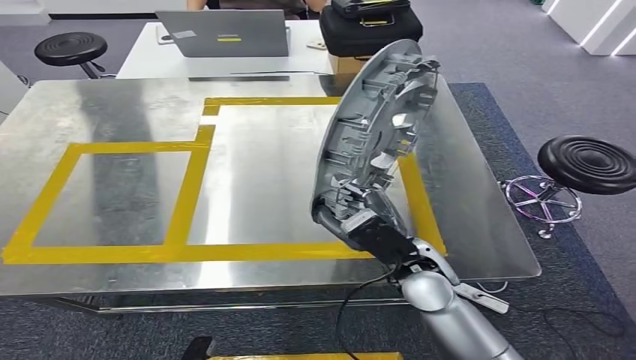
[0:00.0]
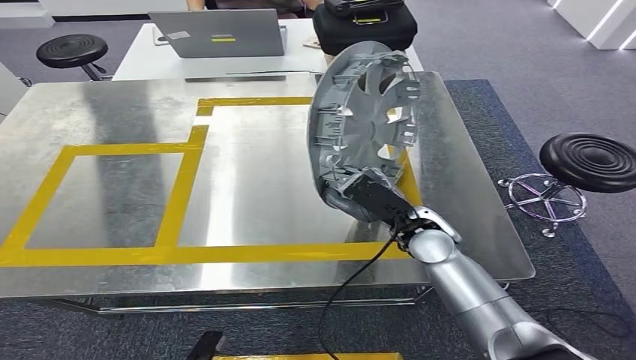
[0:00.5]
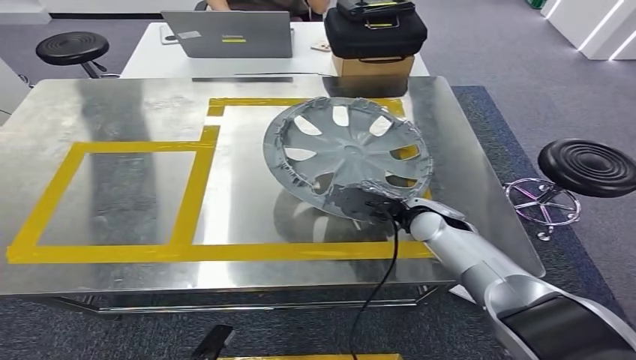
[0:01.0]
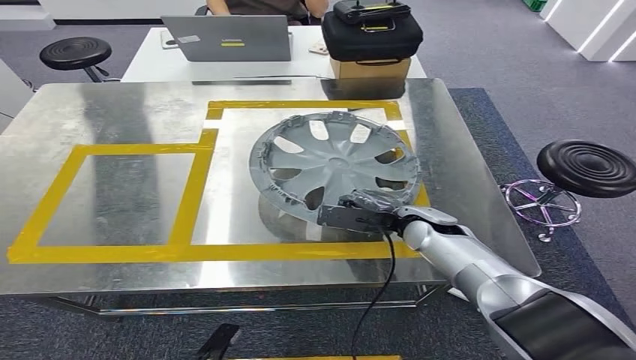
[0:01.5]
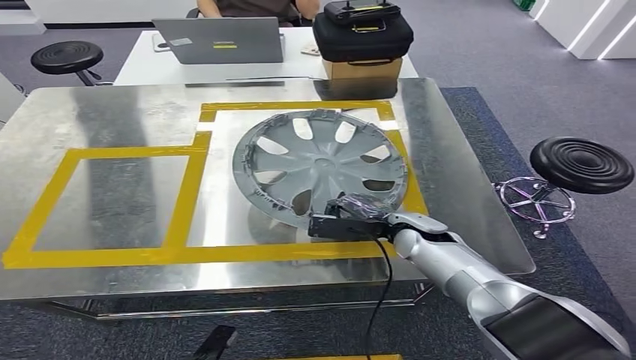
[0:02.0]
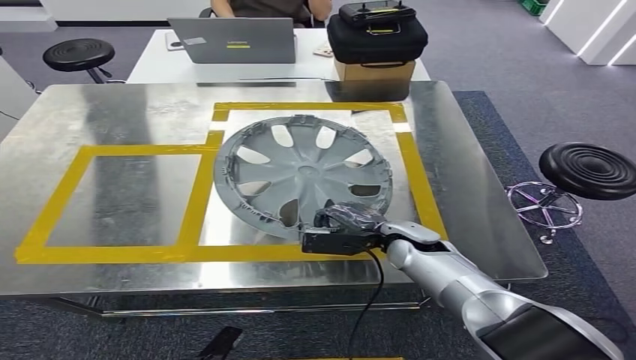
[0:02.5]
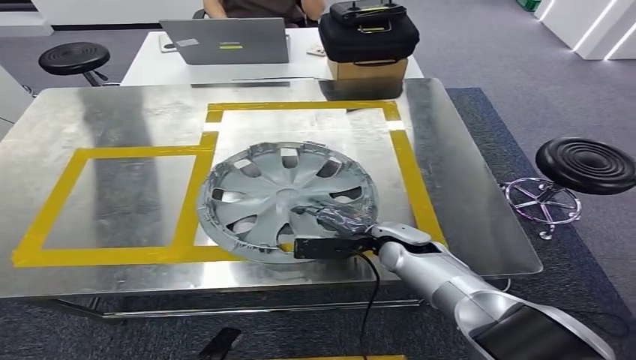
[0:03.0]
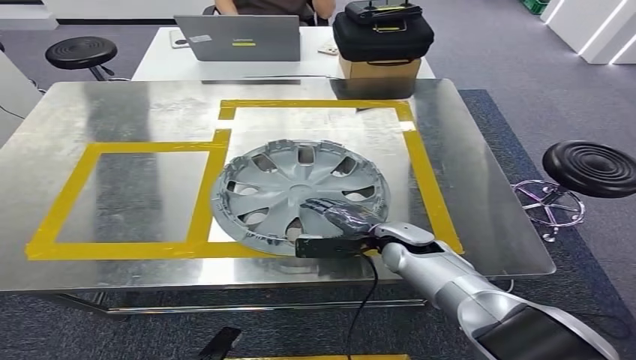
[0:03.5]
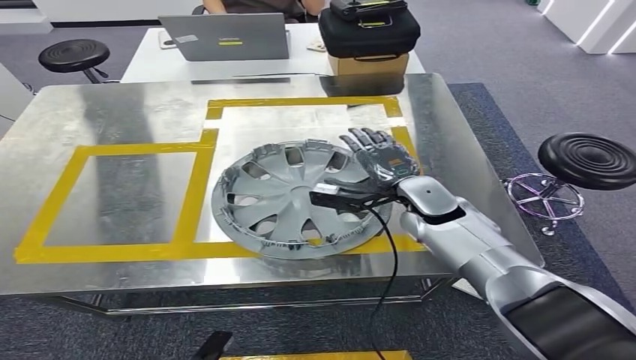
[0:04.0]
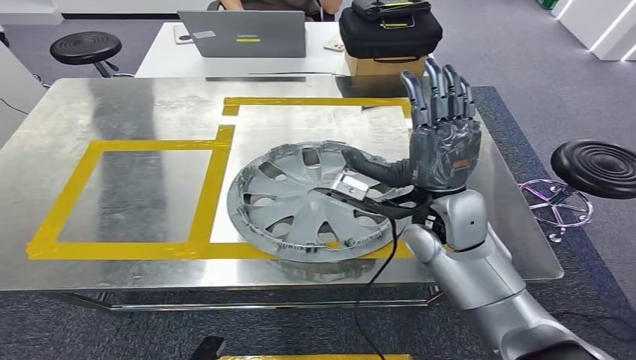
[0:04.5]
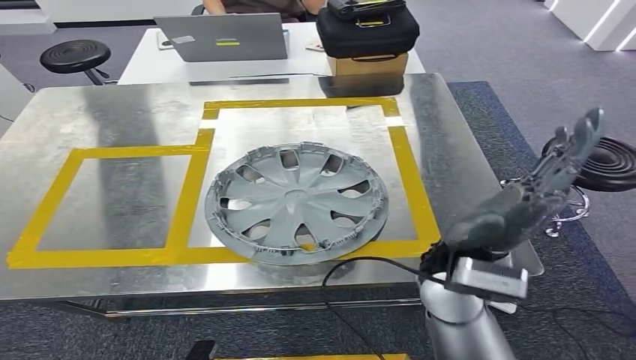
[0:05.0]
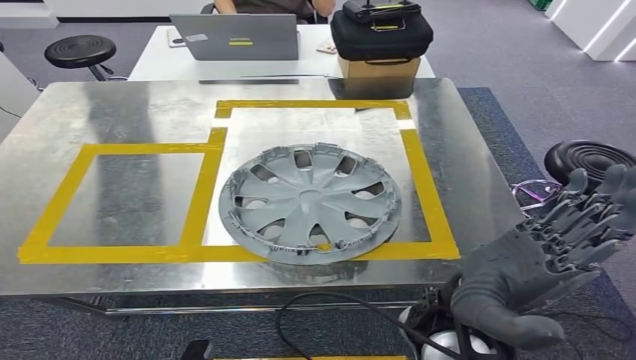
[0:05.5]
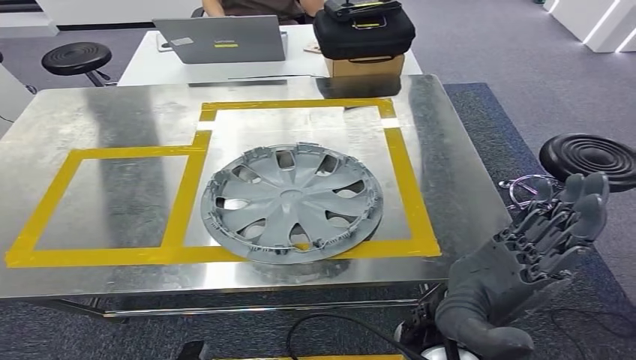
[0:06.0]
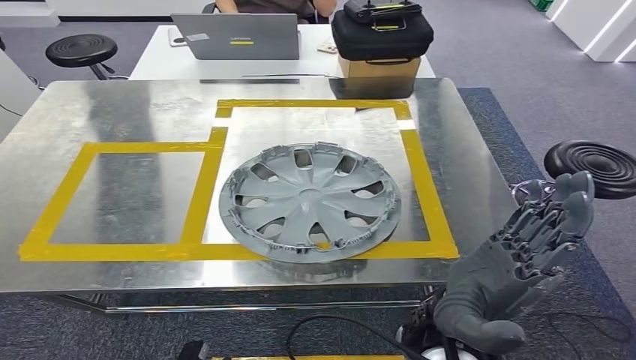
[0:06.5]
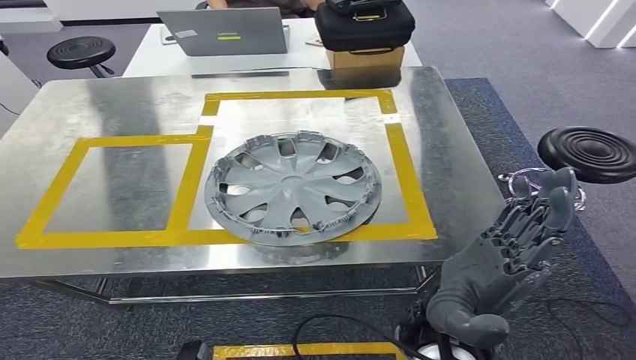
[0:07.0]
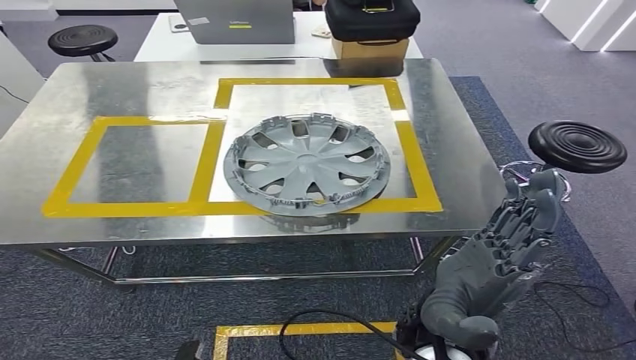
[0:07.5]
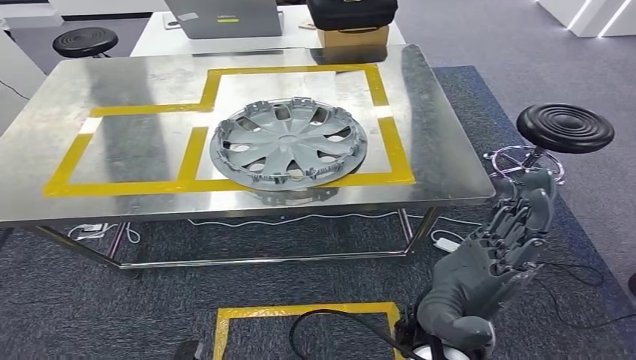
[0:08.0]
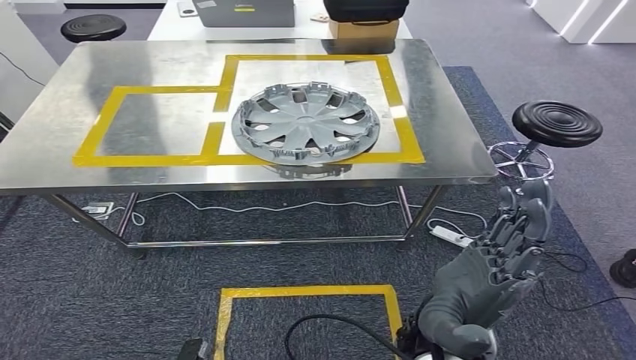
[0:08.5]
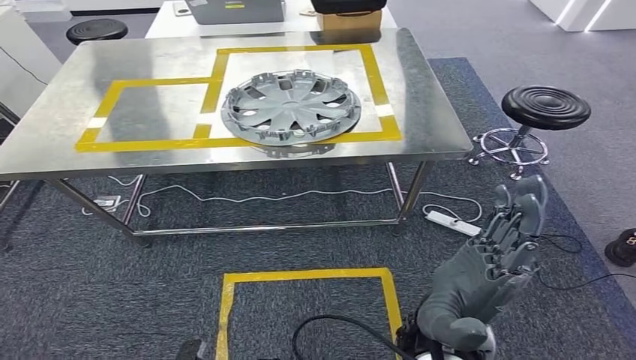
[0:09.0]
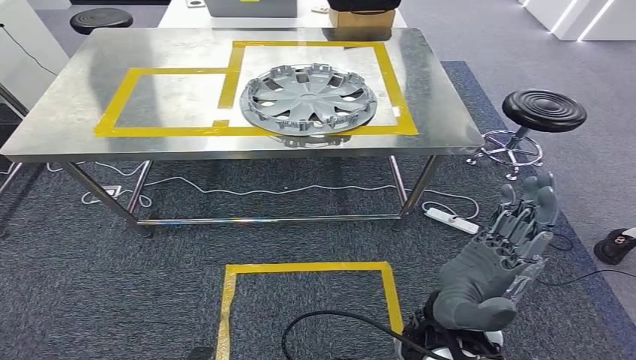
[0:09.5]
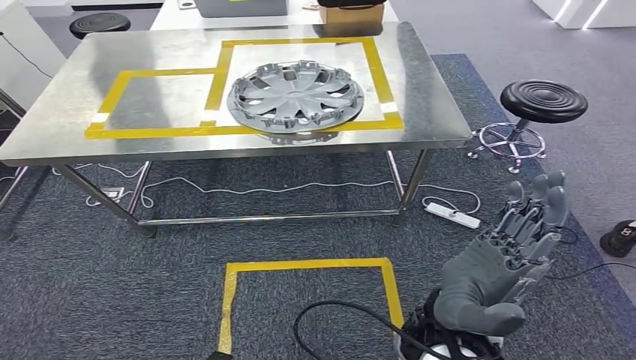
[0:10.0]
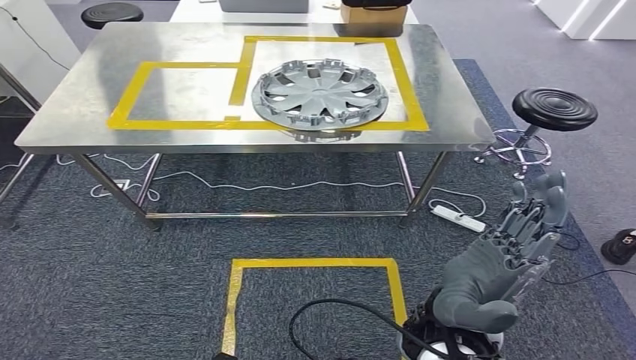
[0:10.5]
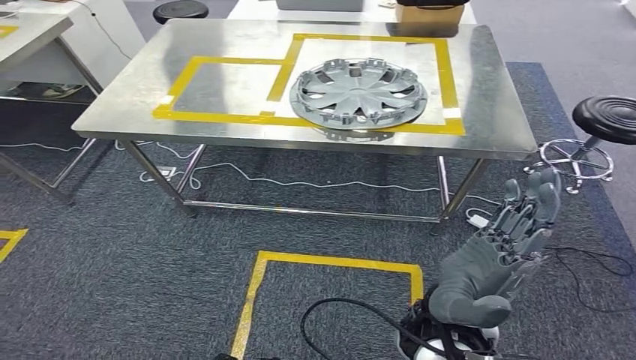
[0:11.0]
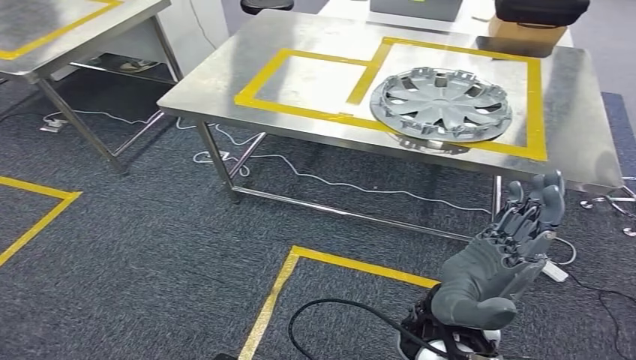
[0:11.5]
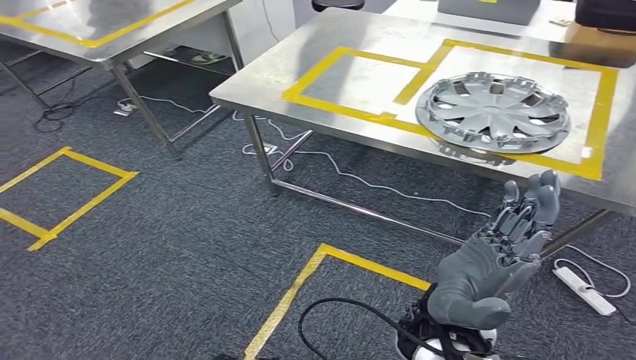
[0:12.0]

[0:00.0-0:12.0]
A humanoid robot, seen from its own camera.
Step, 0:00.0 to 0:06.0: Insert the small component into the corresponding slot on the workbench.

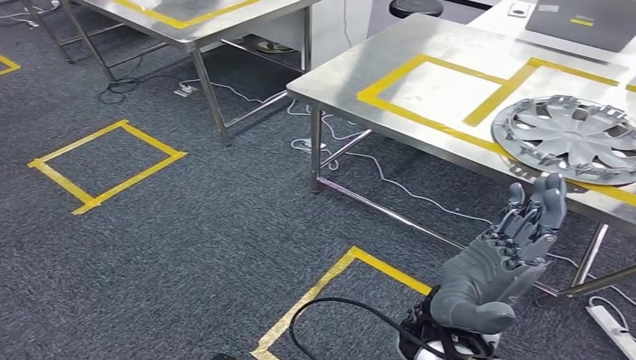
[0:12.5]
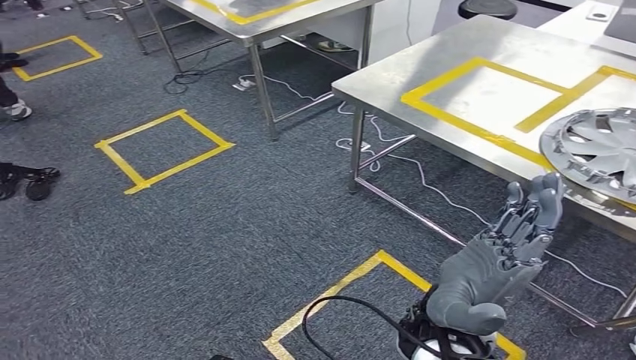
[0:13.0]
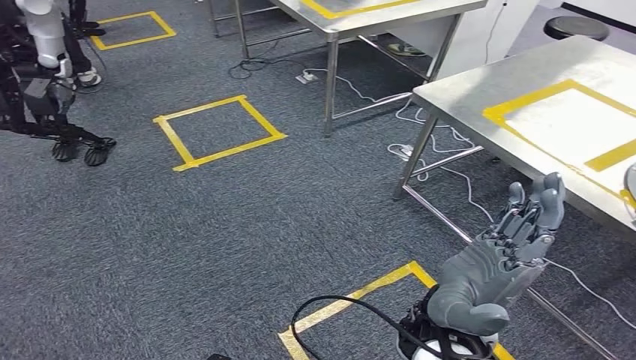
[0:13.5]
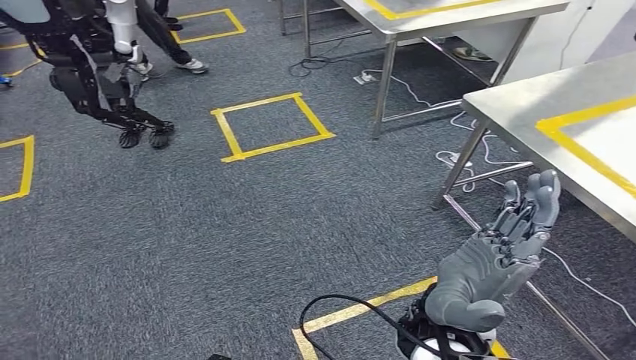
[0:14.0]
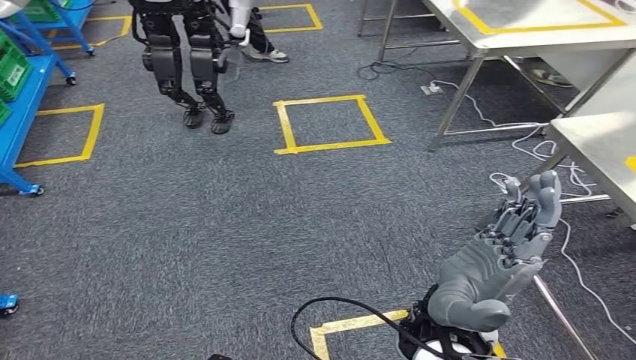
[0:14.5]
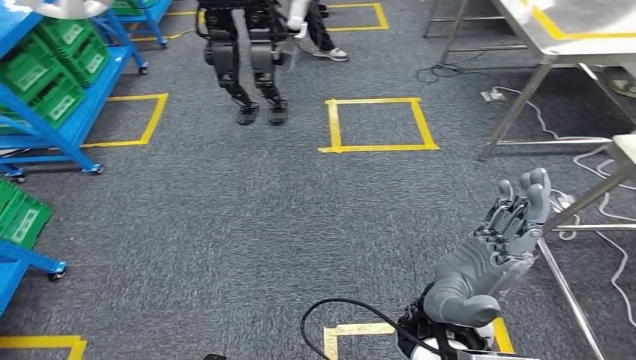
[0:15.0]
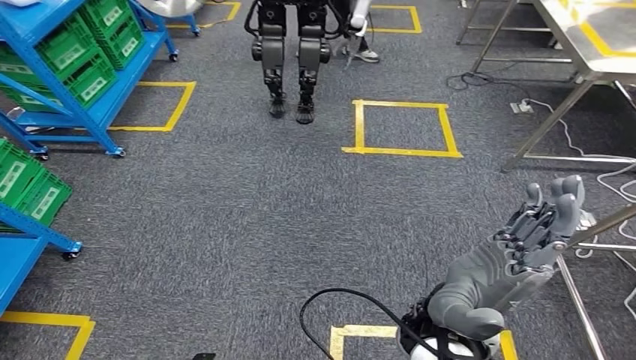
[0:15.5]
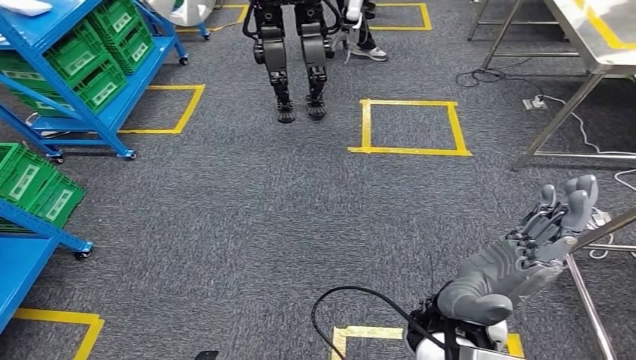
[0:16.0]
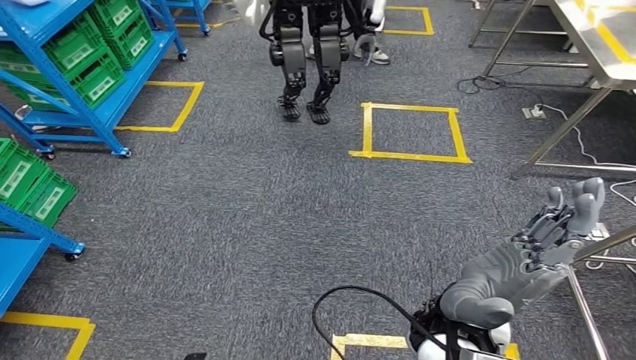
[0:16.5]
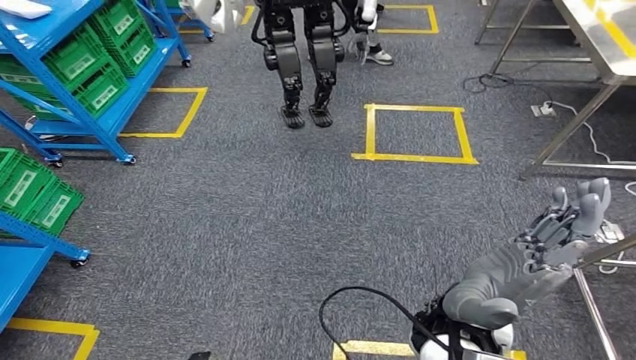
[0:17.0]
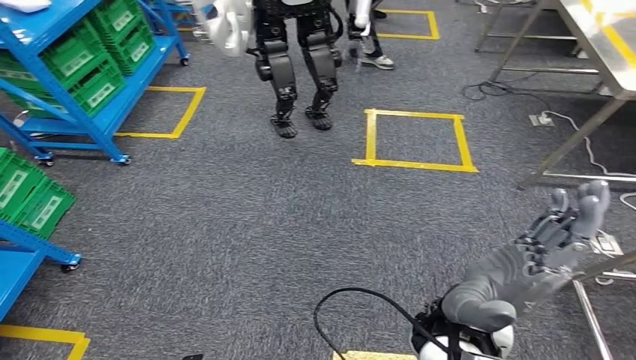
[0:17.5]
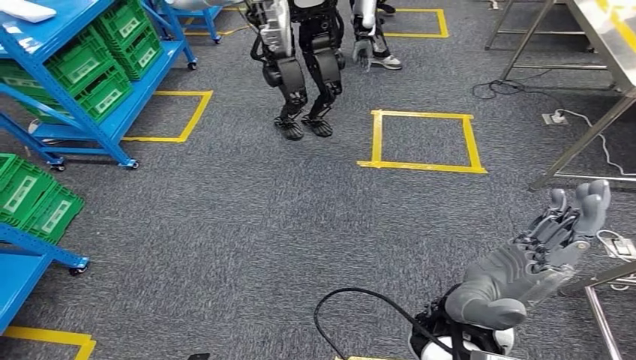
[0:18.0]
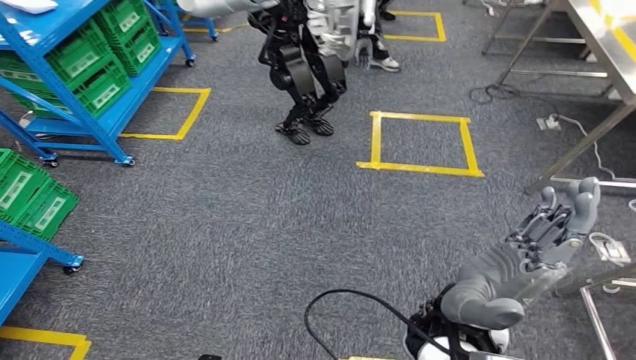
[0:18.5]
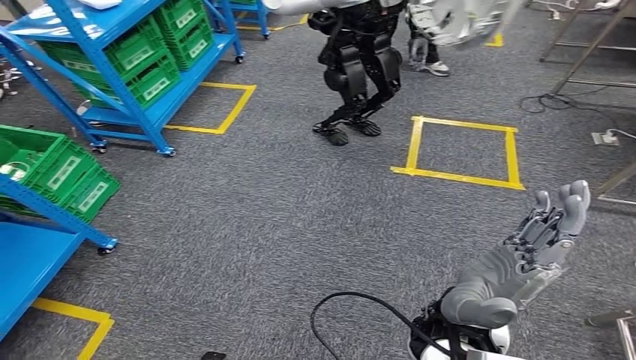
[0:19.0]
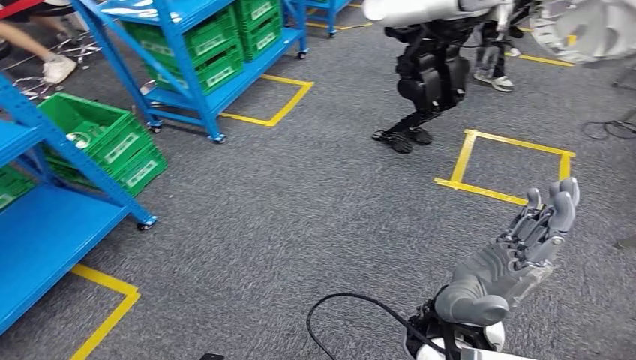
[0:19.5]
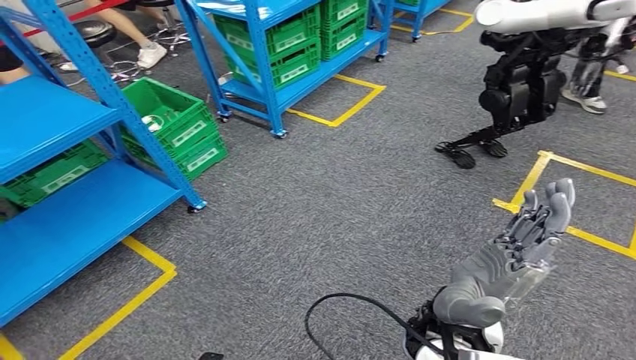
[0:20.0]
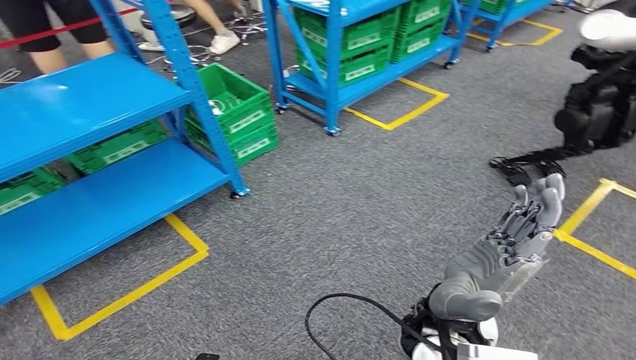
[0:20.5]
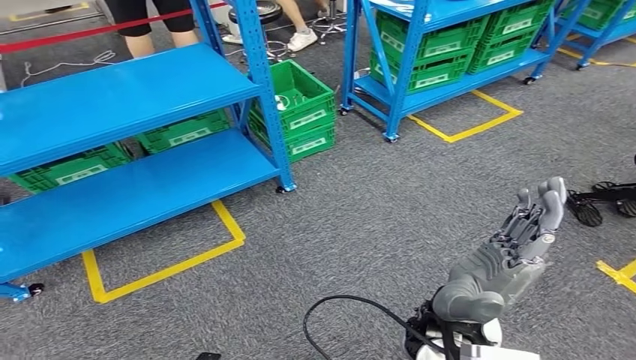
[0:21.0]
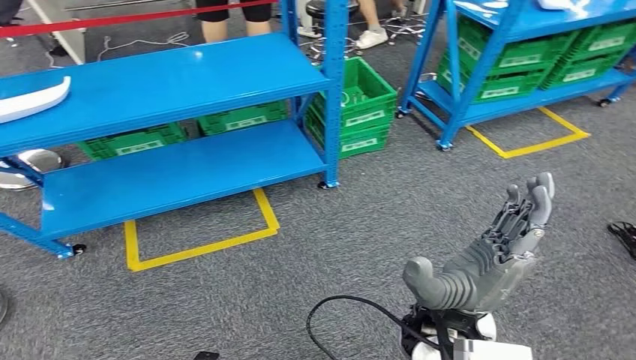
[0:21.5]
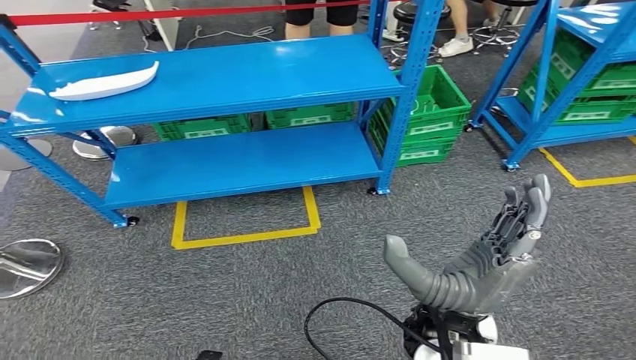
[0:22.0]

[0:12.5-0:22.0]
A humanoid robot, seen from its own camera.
Step, 0:12.5 to 0:22.0: Return to the initial position at the workbench.
